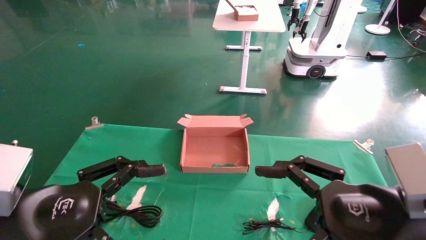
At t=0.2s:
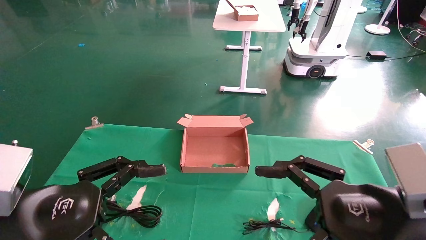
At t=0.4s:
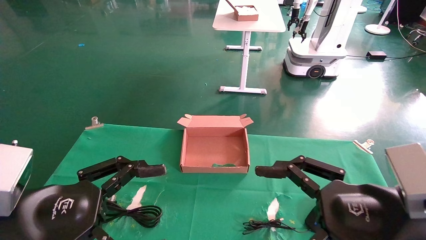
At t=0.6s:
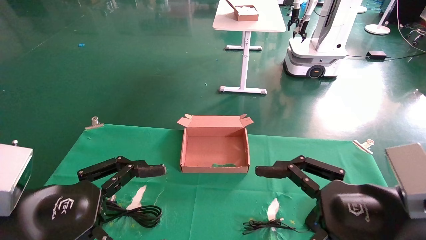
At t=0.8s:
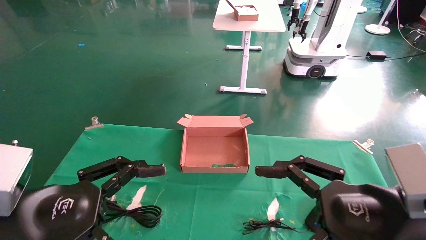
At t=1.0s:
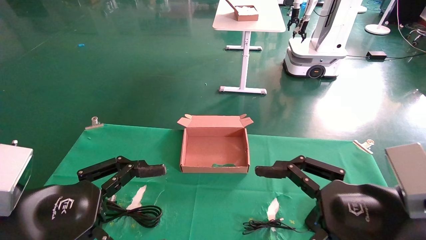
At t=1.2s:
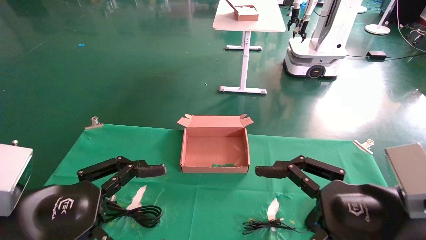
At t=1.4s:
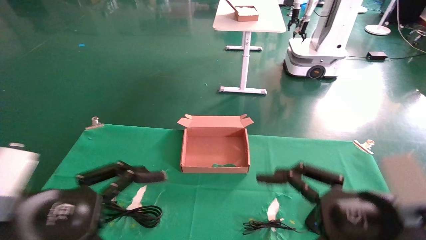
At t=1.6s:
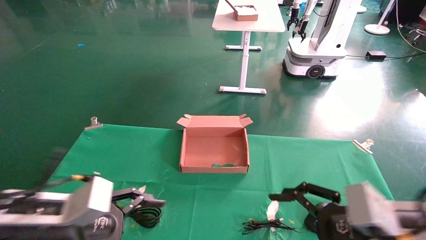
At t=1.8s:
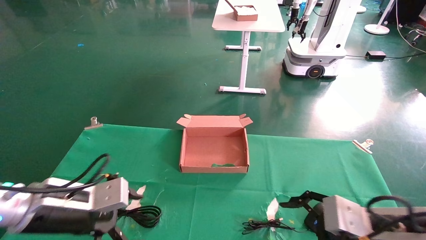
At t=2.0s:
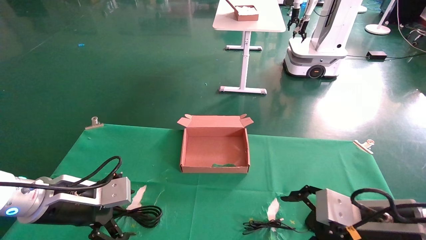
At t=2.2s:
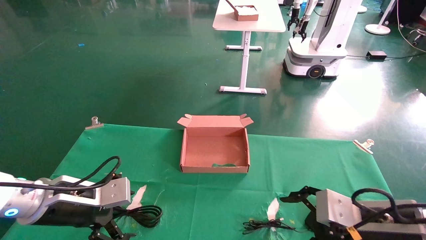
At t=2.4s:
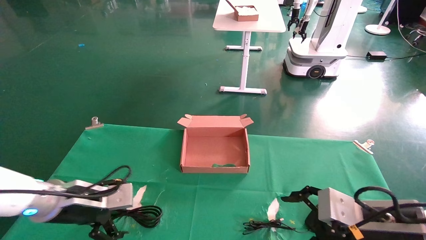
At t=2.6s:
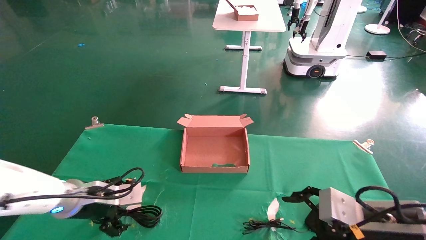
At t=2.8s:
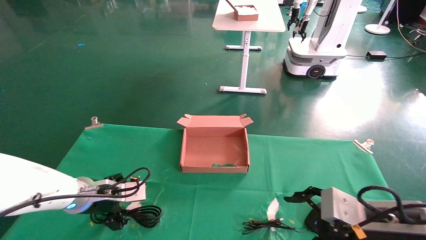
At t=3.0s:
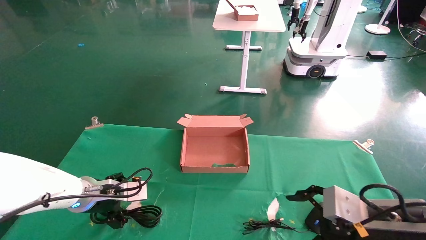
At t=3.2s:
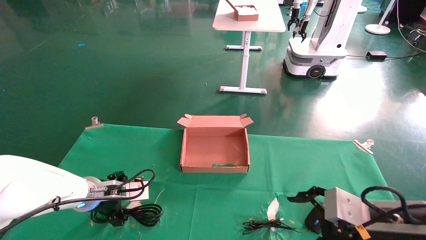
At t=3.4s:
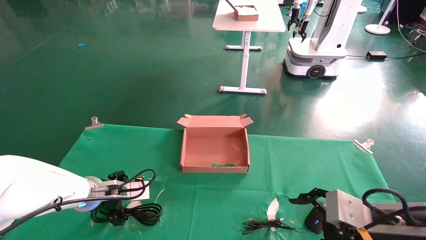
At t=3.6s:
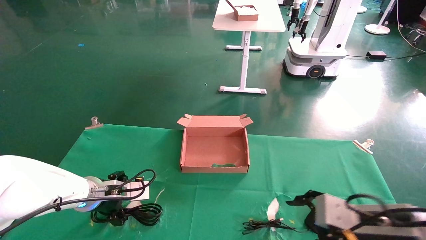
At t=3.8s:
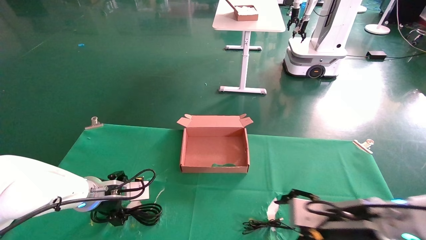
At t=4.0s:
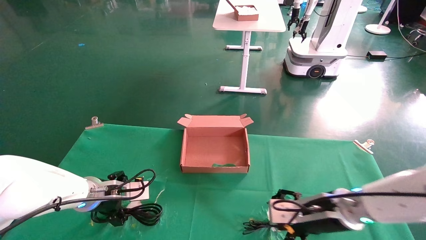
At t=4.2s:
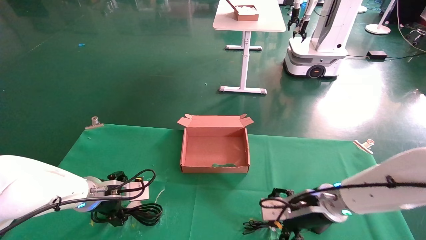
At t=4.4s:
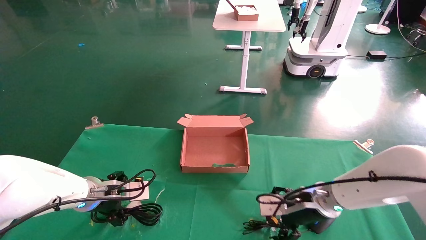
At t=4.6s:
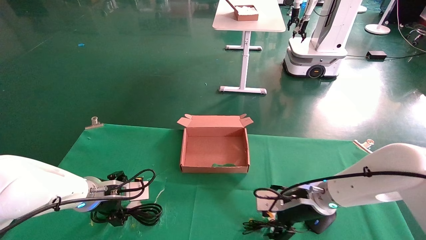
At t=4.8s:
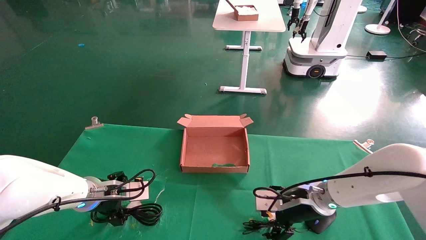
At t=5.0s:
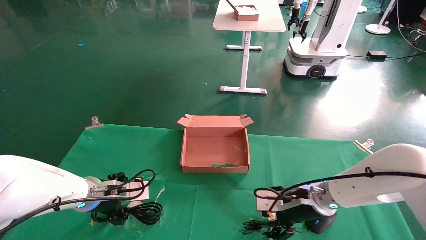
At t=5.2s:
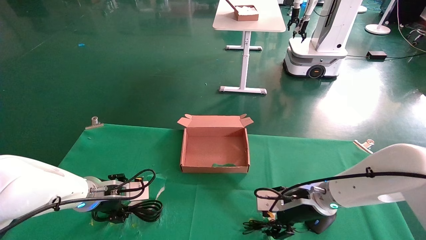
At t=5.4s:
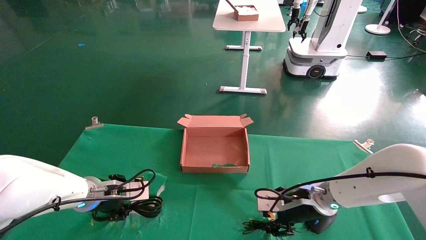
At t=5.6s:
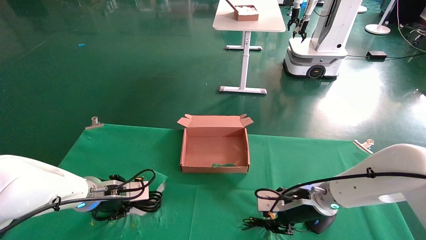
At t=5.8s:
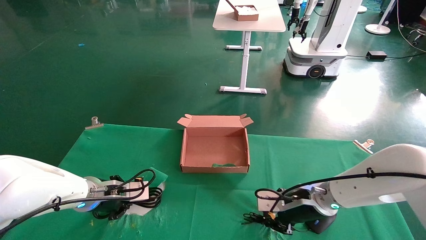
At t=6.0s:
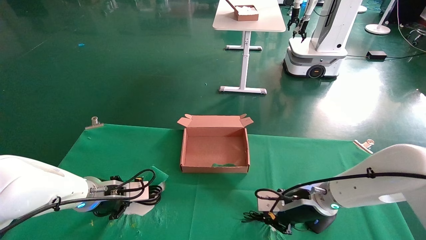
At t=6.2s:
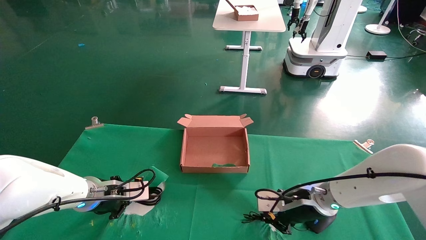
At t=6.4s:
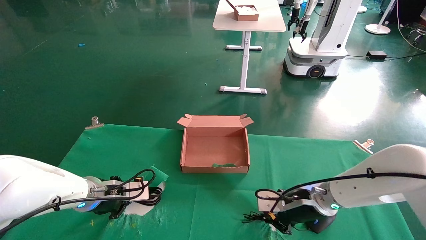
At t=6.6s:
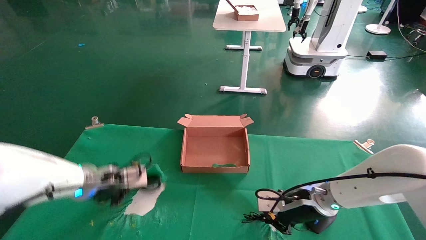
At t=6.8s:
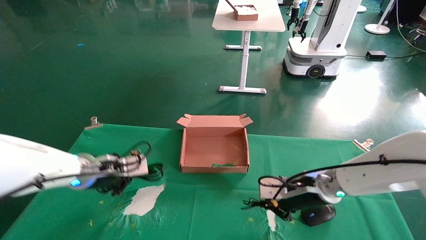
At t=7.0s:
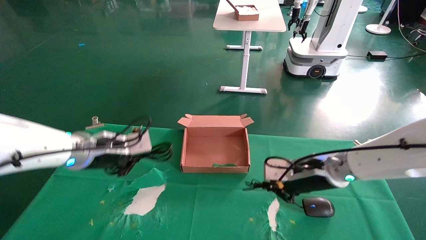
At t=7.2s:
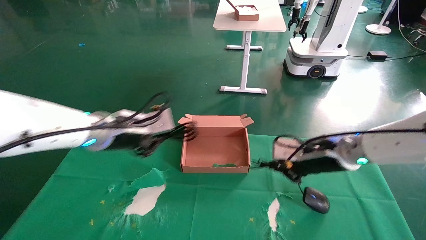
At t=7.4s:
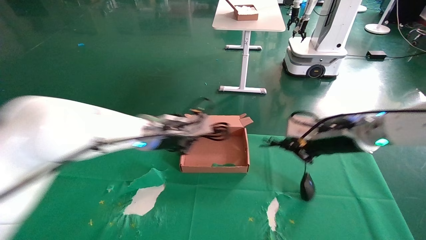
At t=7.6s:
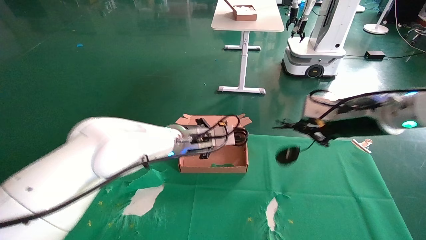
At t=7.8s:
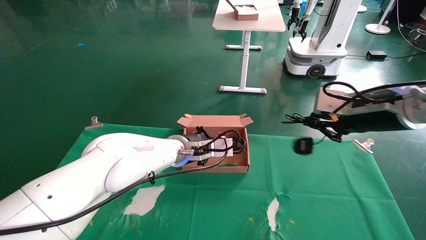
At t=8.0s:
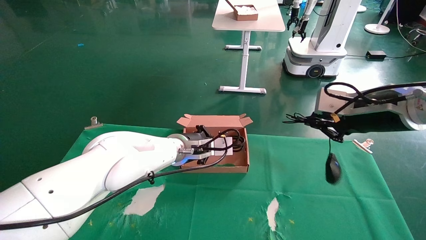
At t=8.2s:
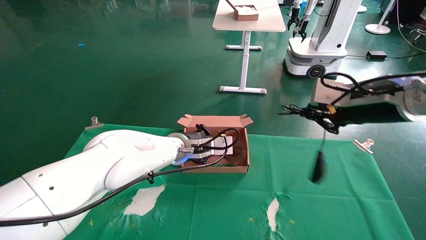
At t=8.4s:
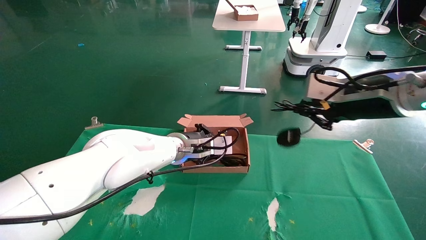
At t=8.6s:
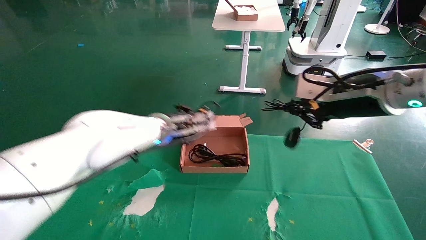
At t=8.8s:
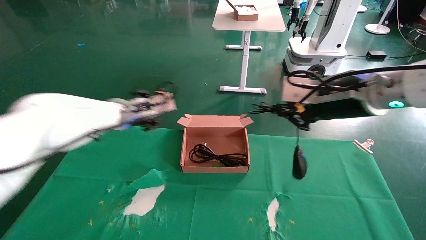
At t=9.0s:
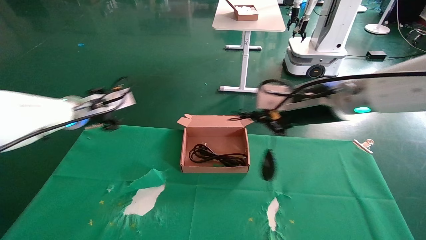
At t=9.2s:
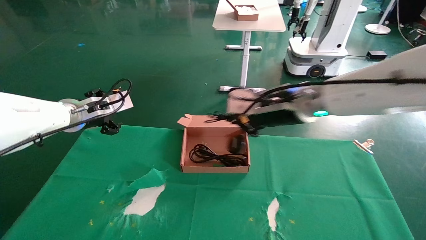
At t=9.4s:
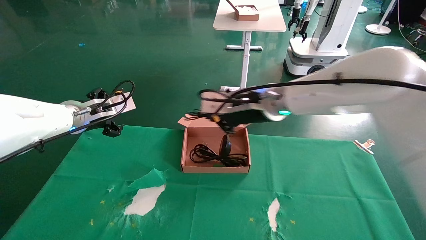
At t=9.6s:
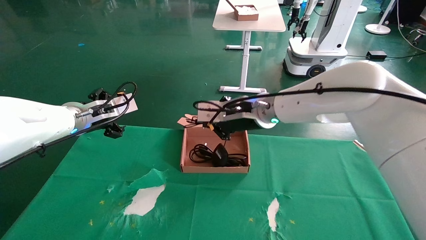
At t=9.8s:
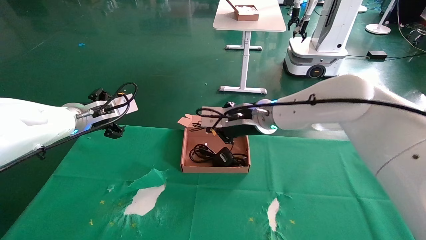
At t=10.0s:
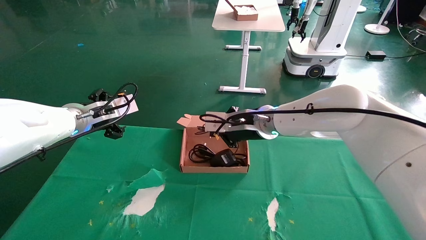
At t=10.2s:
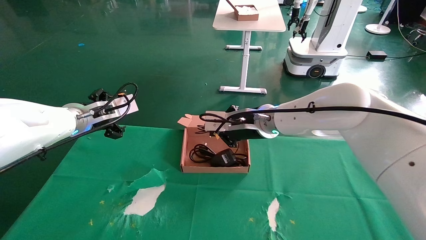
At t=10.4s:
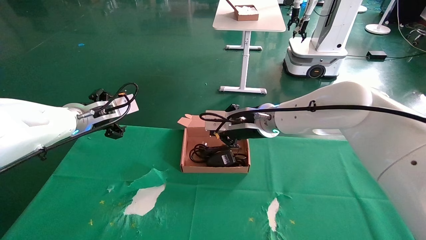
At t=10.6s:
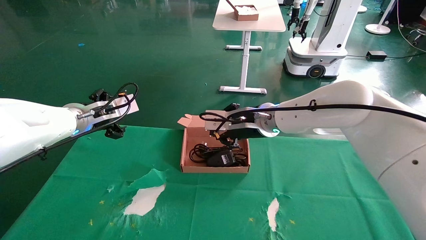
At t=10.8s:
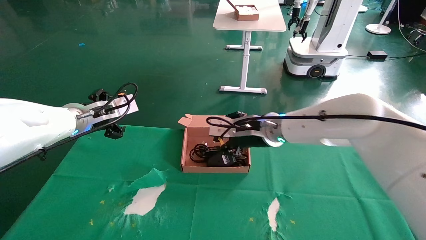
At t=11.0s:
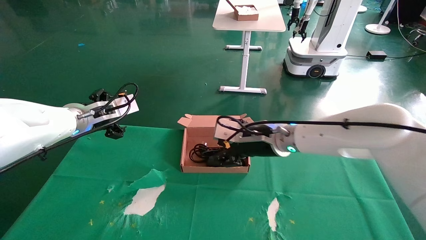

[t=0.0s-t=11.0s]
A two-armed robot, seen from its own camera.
Step, t=1.6s to t=6.6s: Grab and lift both the mouse and power cord from the accessory packaging area at the same time.
t=0.0s to t=1.6s: The left gripper shifts roughly 10 cm forward and downward, while the right gripper shifts by approximately 5 cm.
t=1.6s to t=3.2s: The left gripper shifts roughly 15 cm forward.
t=3.2s to t=4.8s: The right gripper moves forward and to the left, approximately 20 cm.
t=4.8s to t=6.2s: The left gripper closes up; the right gripper closes its fingers.
t=6.2s to t=7.8s: The right gripper is displaced upward and to the right by some 20 cm. The left gripper heads to the right and upward, covering roughly 20 cm.
t=7.8s to t=9.4s: The two grippers go about 20 cm to the left. The left gripper opens up.
t=9.4s to t=11.0s: The right gripper goes some 5 cm downward, and opens its fingers.

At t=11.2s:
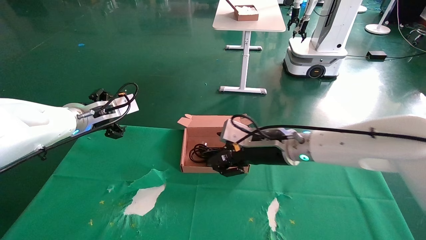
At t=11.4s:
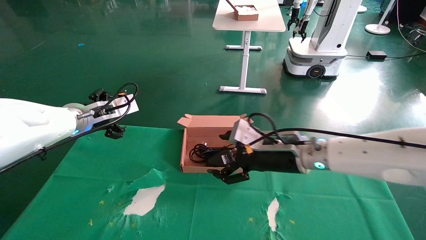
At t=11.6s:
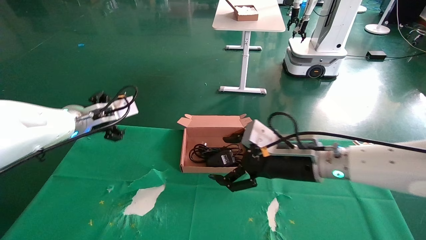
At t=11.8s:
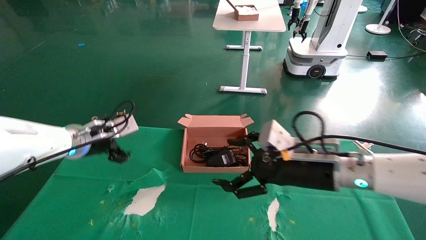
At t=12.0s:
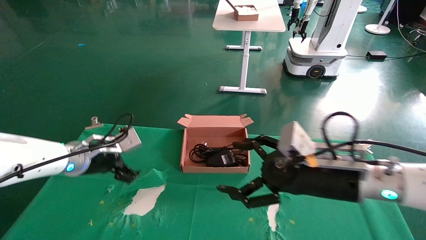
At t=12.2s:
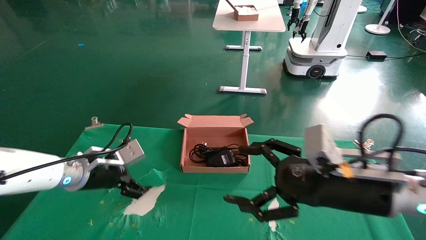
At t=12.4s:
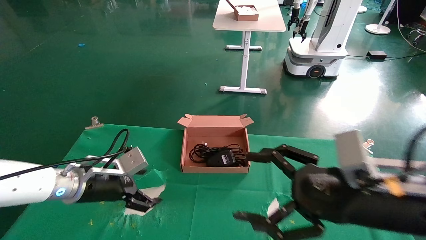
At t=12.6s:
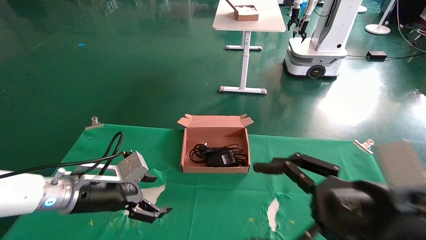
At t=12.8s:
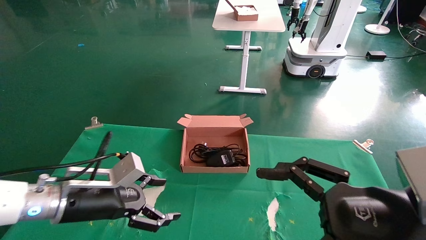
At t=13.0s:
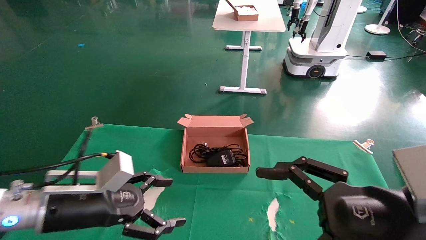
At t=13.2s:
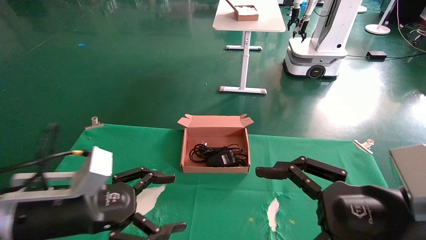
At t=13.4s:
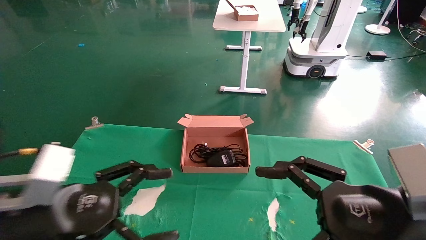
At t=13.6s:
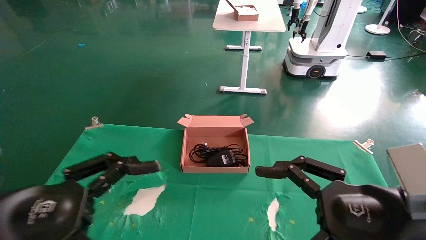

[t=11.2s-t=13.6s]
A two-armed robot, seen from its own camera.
t=11.2s to t=12.4s: The left gripper moves downward and backward, roughly 15 cm. Meanwhile the right gripper heads backward and to the right, covering some 20 cm.
t=12.4s to t=13.6s: The left gripper moves backward, some 20 cm.

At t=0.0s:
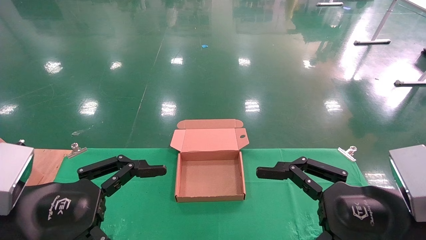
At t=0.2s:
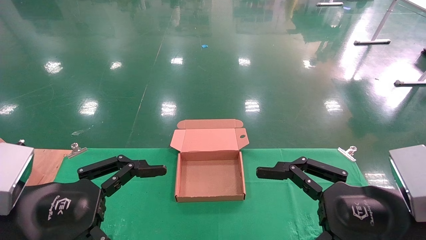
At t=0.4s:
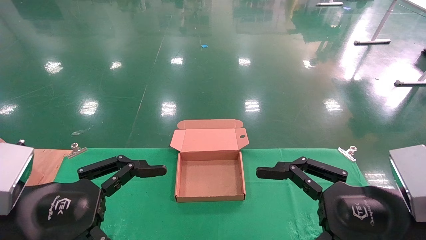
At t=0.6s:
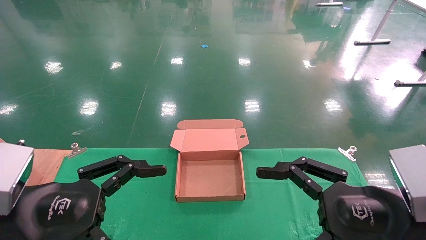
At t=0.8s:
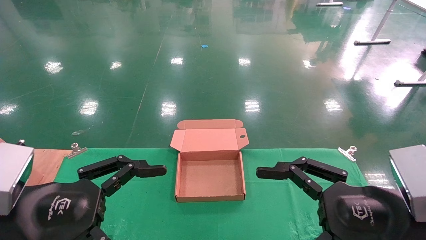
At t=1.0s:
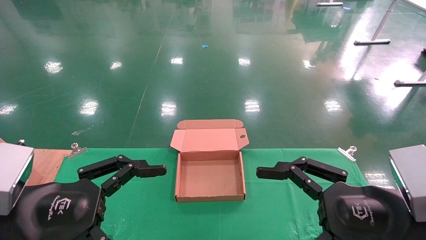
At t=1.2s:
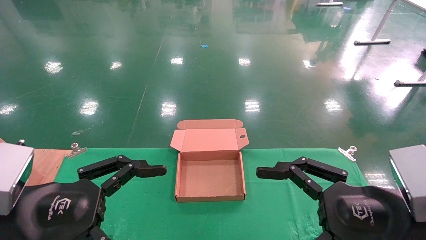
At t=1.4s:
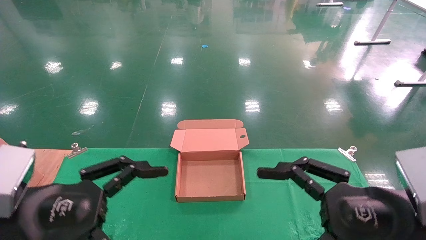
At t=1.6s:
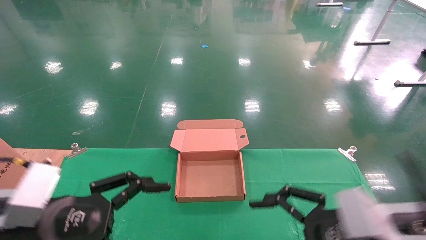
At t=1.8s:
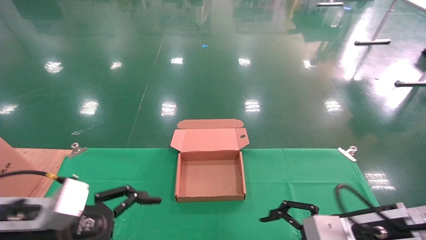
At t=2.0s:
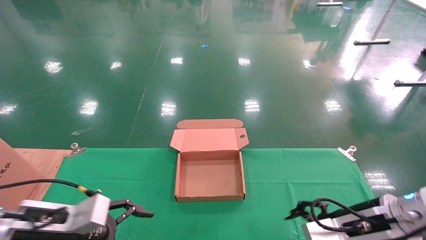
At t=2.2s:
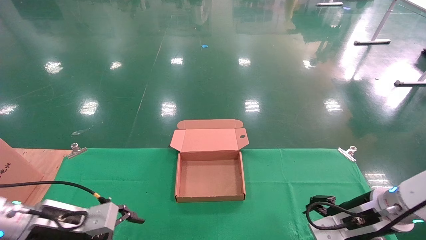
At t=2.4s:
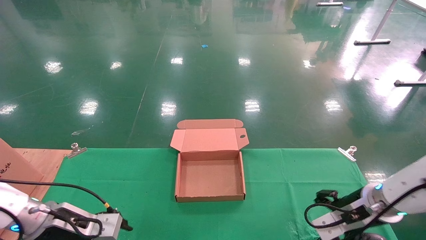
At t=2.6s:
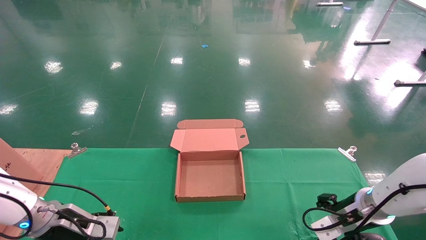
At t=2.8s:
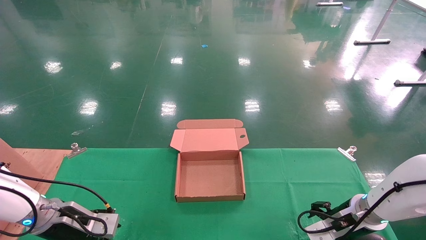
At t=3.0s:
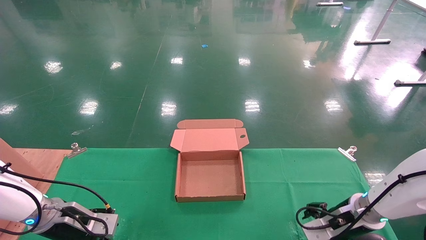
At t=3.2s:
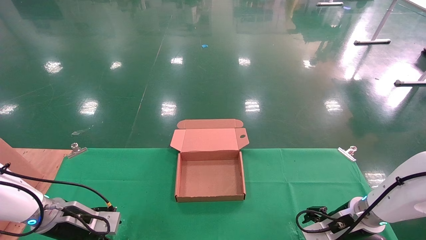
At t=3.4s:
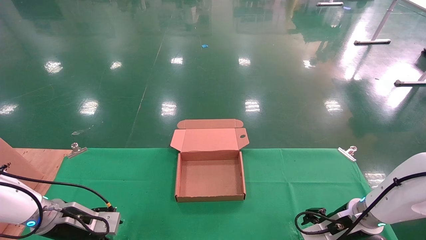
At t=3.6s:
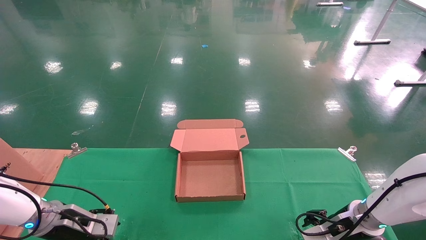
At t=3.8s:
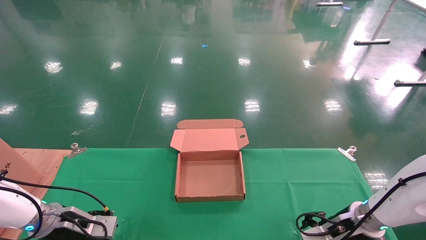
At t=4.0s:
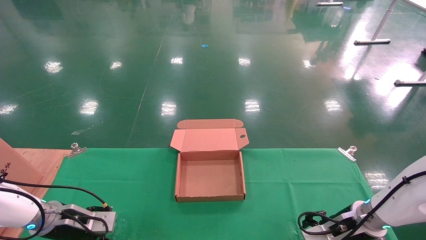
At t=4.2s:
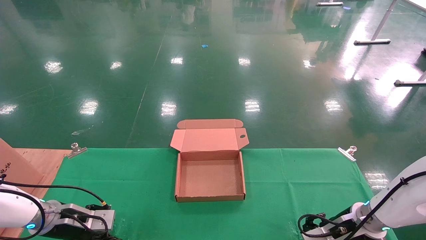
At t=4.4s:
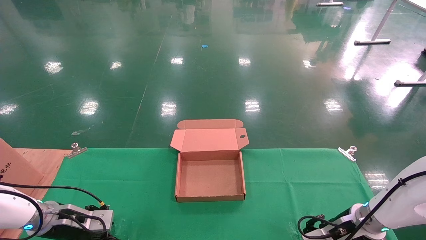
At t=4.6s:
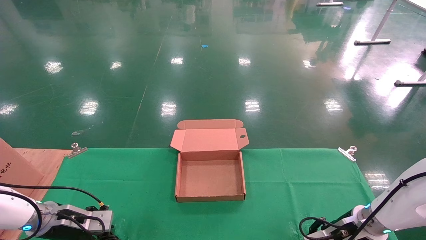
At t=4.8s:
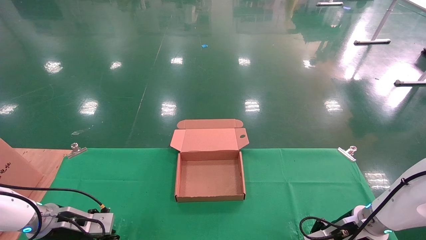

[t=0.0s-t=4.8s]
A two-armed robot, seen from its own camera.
t=0.0s to t=1.6s: The right gripper changes place by approximately 5 cm.
t=1.6s to t=3.2s: The grippers both shift forward and downward by approximately 20 cm.
t=3.2s to t=4.8s: The right gripper closes up; the left gripper closes its fingers.
